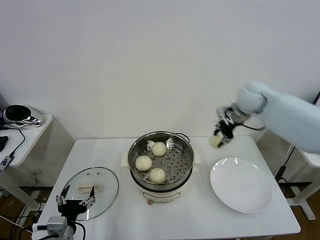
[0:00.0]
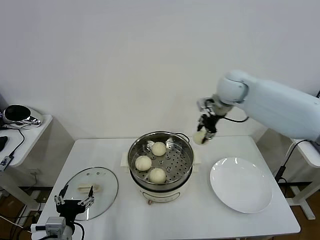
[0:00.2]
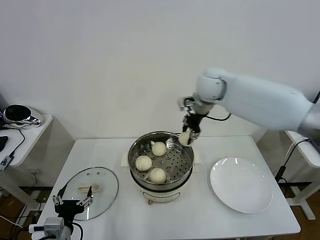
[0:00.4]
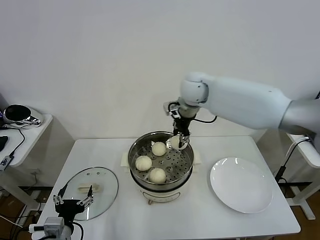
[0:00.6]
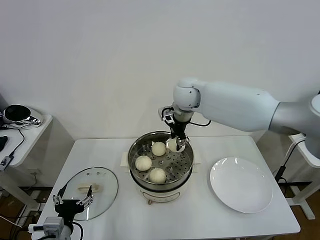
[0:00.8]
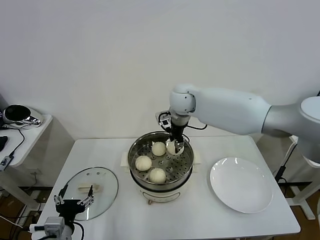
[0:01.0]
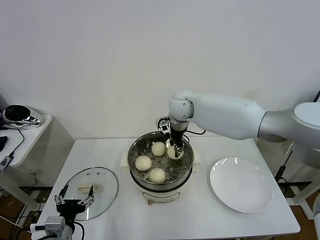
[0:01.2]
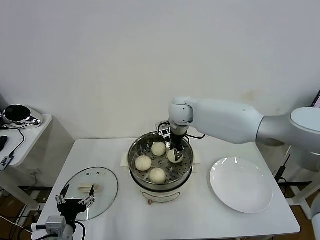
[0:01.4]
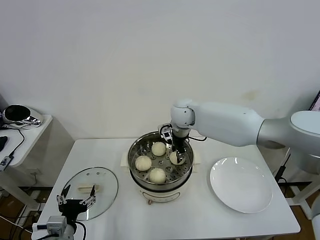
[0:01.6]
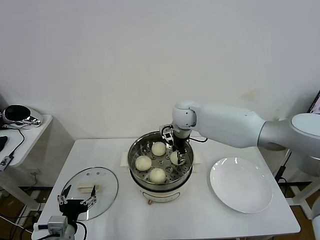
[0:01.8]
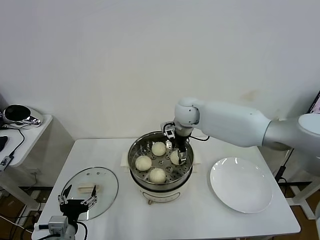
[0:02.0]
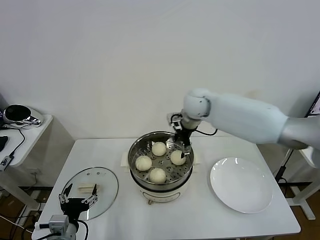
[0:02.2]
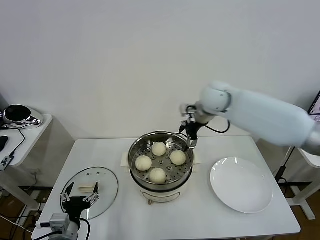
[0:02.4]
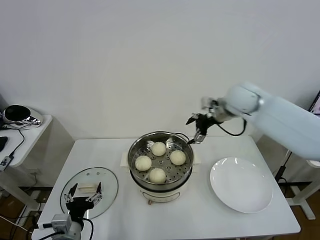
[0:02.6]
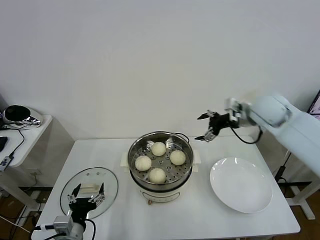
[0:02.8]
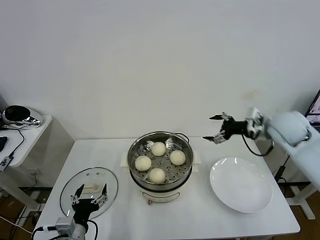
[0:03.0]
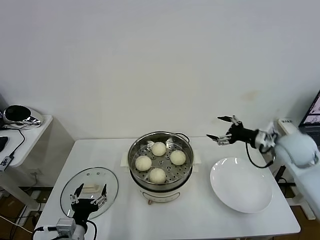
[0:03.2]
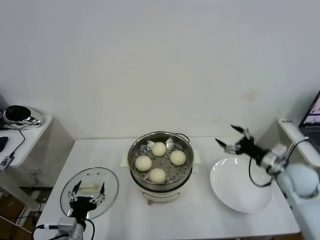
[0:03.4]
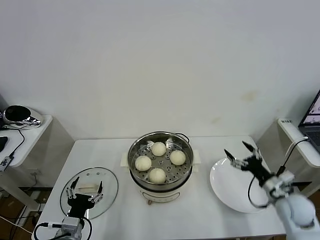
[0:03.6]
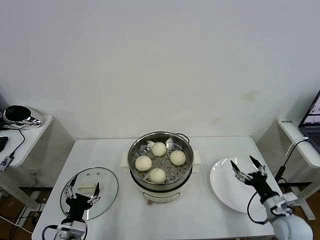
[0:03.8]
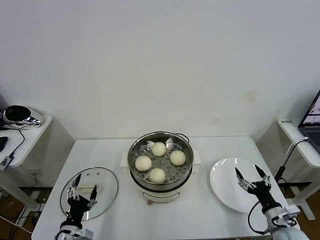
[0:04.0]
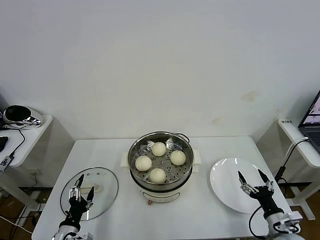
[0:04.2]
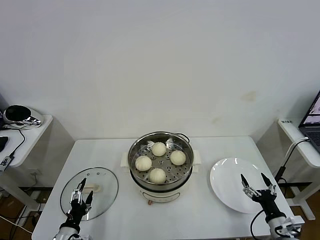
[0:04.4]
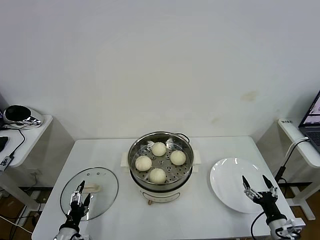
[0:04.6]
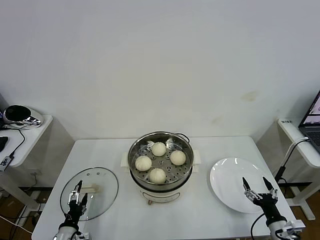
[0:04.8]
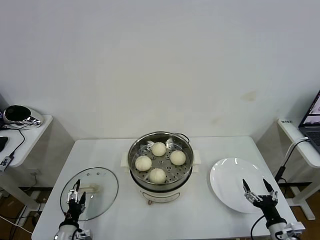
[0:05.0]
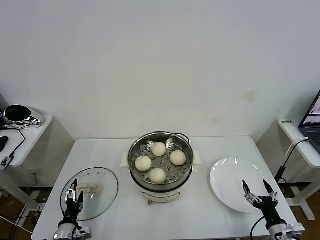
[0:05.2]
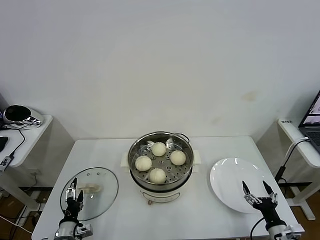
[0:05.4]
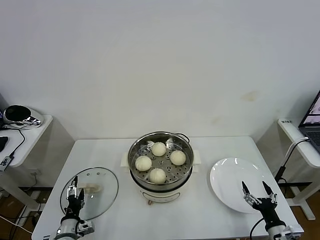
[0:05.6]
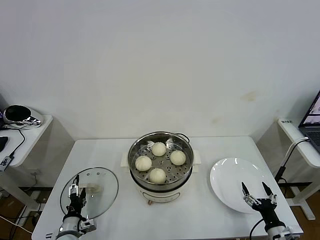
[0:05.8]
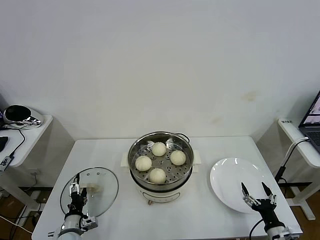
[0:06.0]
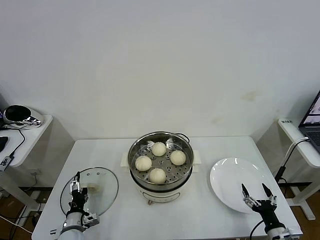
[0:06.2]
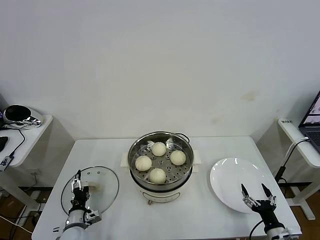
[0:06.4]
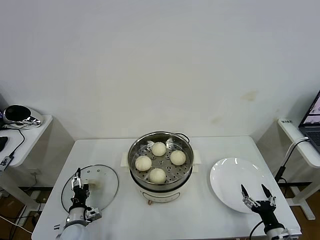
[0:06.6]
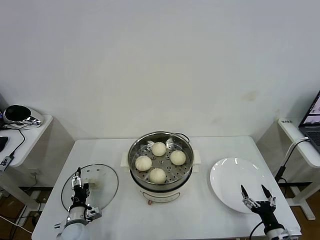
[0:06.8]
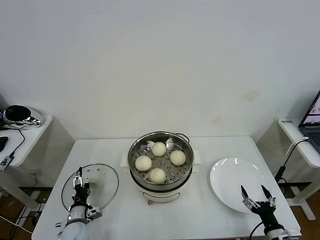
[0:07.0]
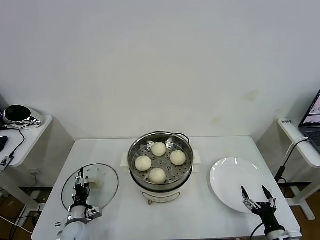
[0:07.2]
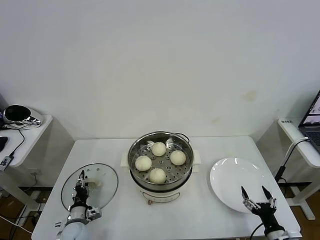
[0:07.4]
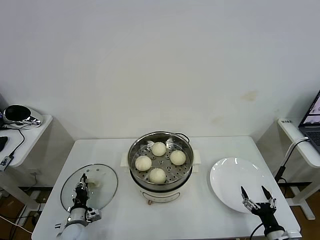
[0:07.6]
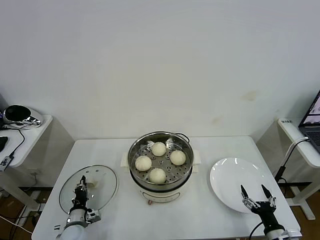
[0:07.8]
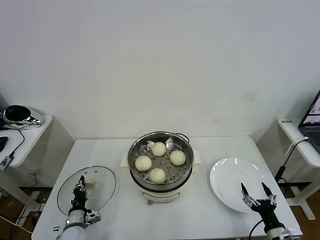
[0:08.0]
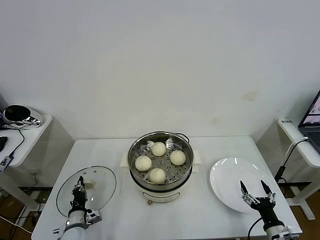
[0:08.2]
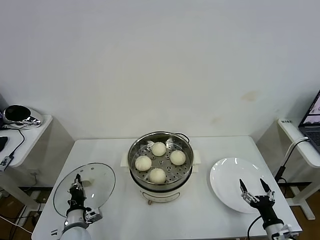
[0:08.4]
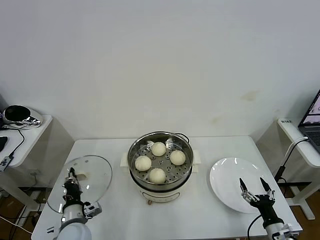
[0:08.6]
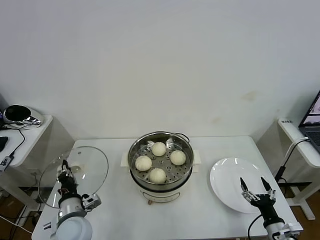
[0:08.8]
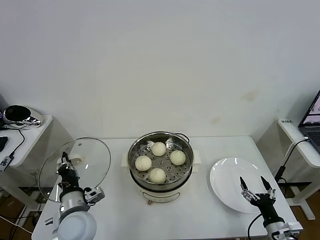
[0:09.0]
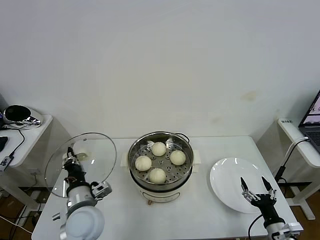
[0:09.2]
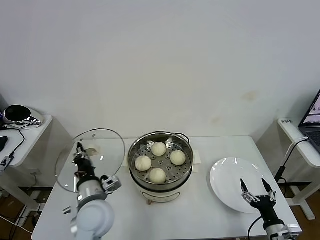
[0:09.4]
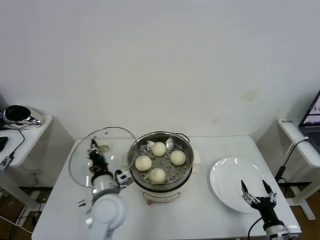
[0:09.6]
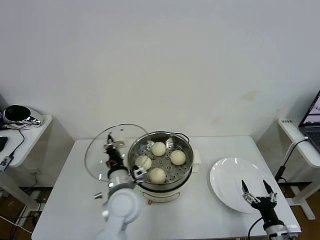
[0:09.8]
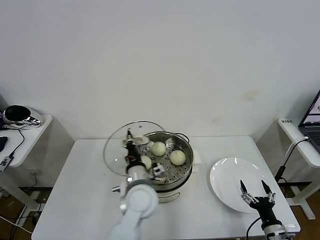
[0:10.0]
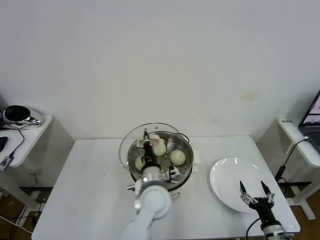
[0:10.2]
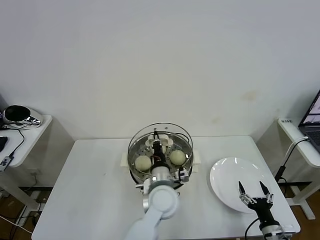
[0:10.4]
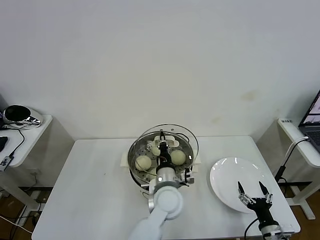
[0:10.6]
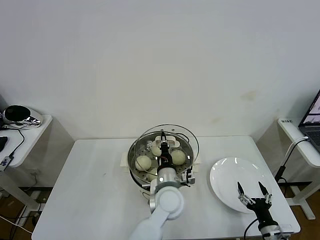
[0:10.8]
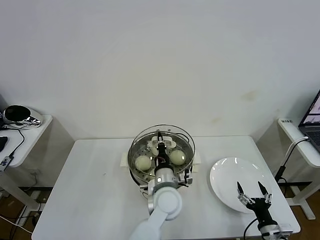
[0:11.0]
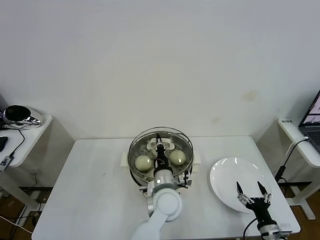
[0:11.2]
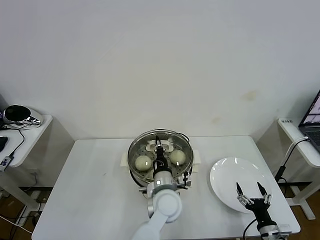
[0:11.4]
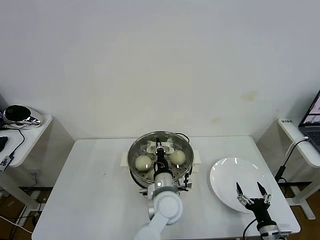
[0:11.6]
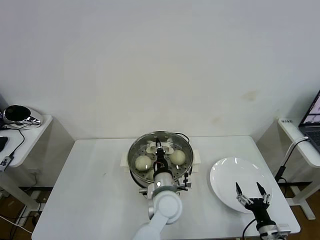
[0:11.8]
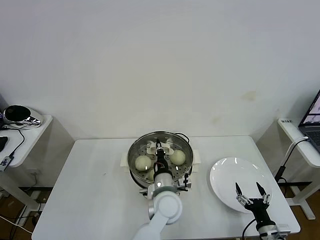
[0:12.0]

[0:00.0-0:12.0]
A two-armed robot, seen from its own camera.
Task of the whole recording: take steamed baozi put them in steamer then cover it.
Step, 0:00.0 to 0:02.0: Place the baozi on the steamer with right gripper.
Step, 0:02.4 to 0:07.8: Grasp the pot lid with left gripper.
0:00.0 to 0:01.6: The right gripper goes approximately 20 cm to the left.
0:01.6 to 0:03.0: The right gripper goes some 30 cm to the right, and opens up.
0:03.0 to 0:04.4: The right gripper heads downward and backward, covering some 40 cm. The left gripper shifts about 10 cm downward and to the left.
0:04.4 to 0:06.0: The left gripper moves forward, about 5 cm.
0:06.0 to 0:07.6: The left gripper changes place by some 5 cm, and closes its fingers.
0:07.6 to 0:09.0: The left gripper heads upward and to the right, covering roughly 20 cm.
0:09.0 to 0:10.4: The left gripper is displaced to the right by some 25 cm.
0:10.4 to 0:12.0: The grippers make only small movements.

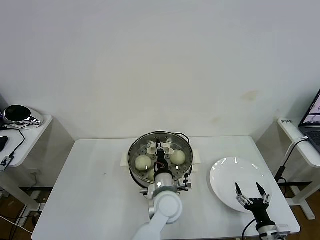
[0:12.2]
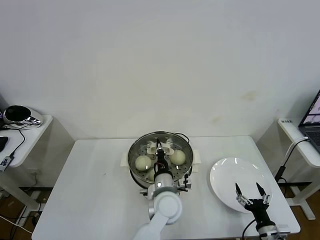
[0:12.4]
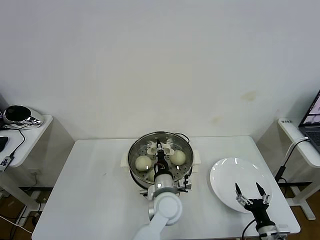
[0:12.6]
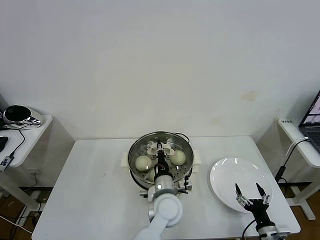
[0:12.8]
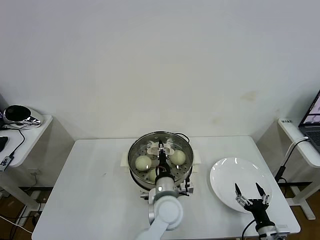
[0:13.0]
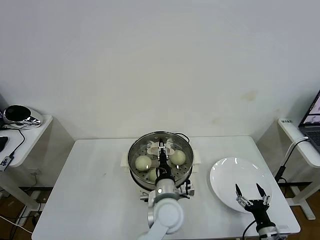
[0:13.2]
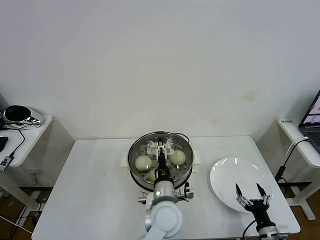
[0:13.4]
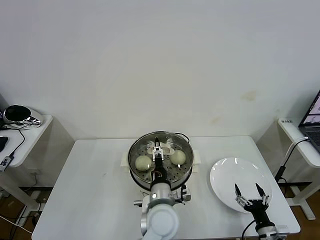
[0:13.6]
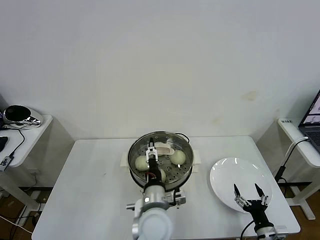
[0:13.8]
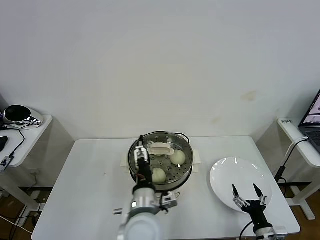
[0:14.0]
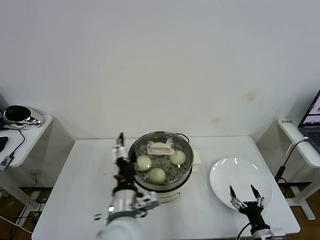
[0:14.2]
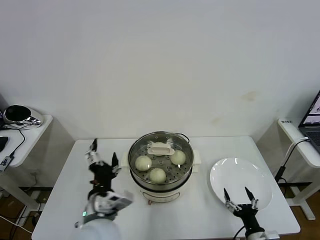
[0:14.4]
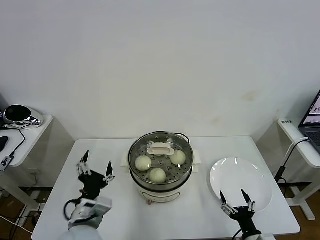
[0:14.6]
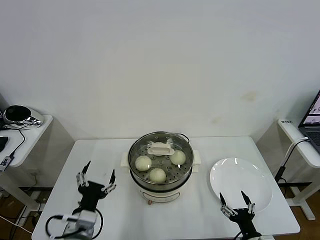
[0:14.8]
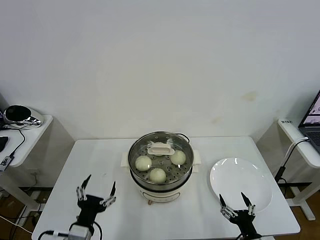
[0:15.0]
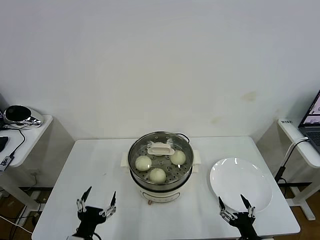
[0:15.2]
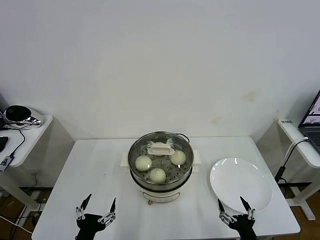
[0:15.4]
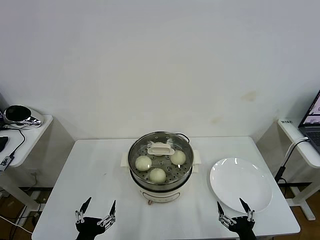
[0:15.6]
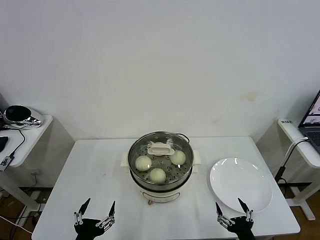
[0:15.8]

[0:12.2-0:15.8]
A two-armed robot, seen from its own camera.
Task of the whole recording: take steamed baozi put them in steamer then cover it.
0:12.2 to 0:14.0: The left gripper moves backward, upward and to the left, about 10 cm, and opens its fingers.
0:14.0 to 0:15.8: The right gripper shifts approximately 10 cm to the left, backward and upward. The left gripper shifts approximately 25 cm to the left and backward.

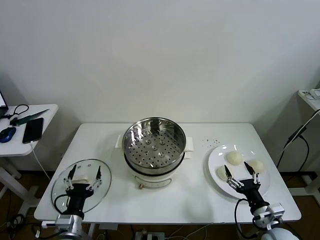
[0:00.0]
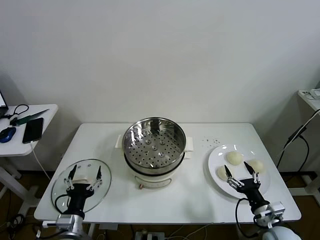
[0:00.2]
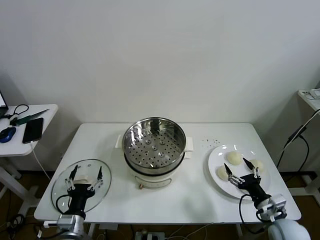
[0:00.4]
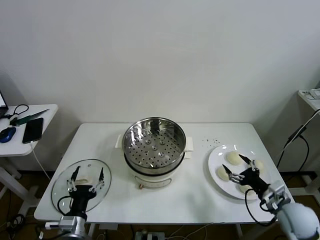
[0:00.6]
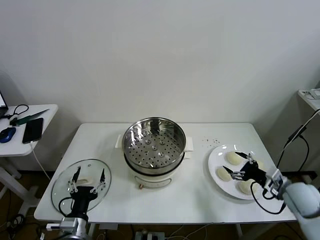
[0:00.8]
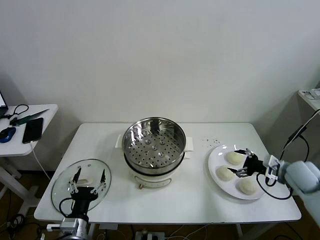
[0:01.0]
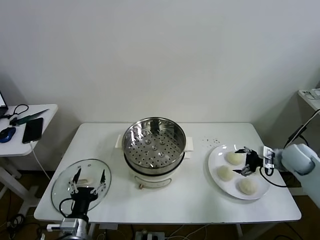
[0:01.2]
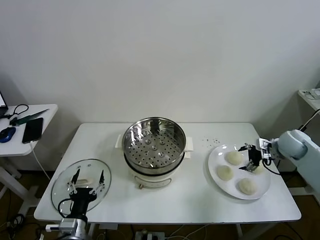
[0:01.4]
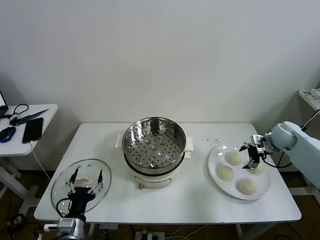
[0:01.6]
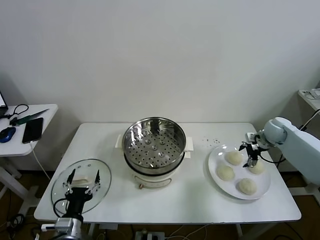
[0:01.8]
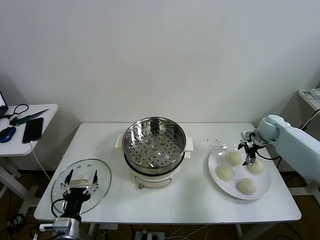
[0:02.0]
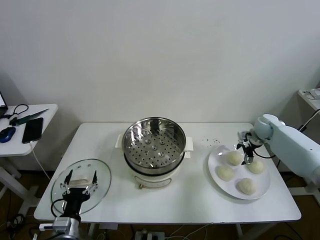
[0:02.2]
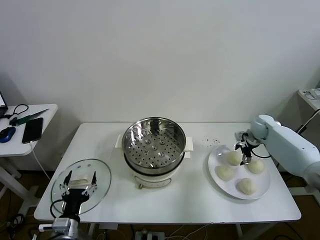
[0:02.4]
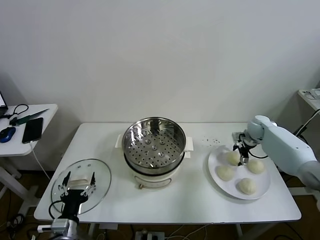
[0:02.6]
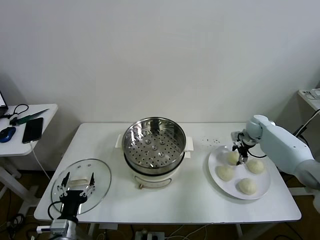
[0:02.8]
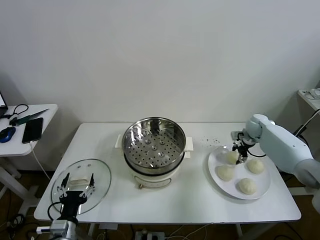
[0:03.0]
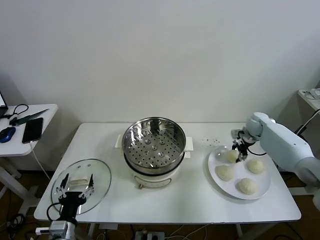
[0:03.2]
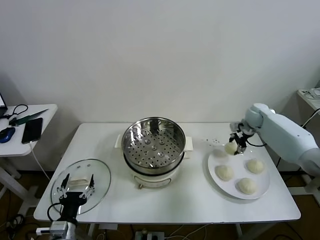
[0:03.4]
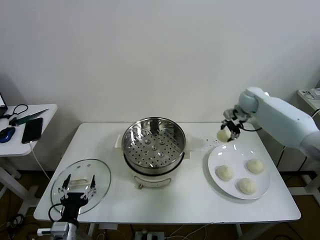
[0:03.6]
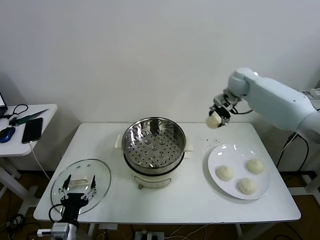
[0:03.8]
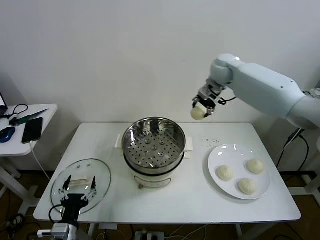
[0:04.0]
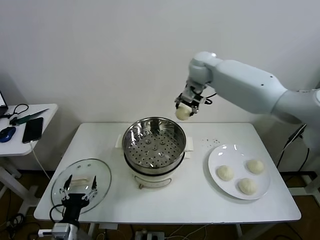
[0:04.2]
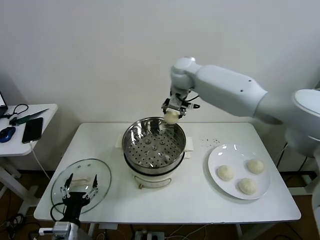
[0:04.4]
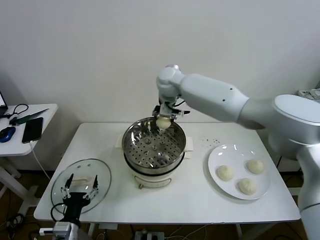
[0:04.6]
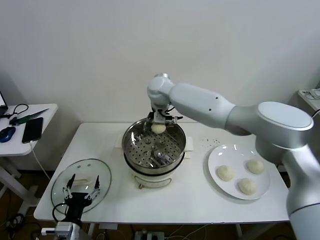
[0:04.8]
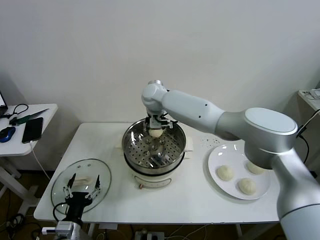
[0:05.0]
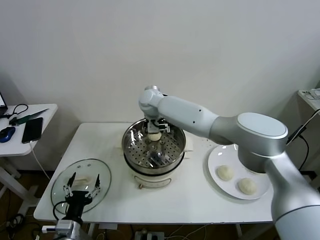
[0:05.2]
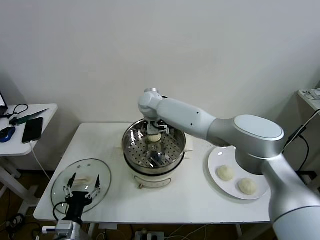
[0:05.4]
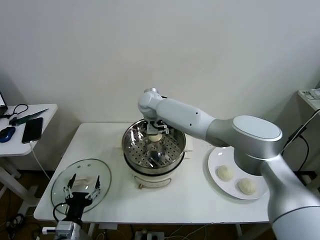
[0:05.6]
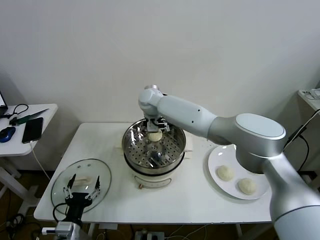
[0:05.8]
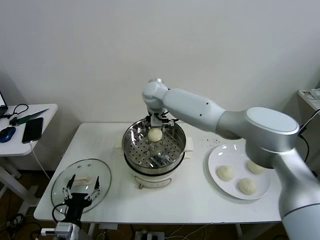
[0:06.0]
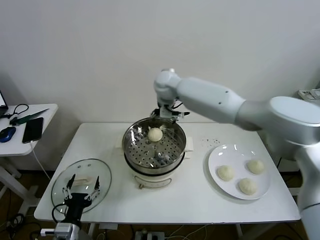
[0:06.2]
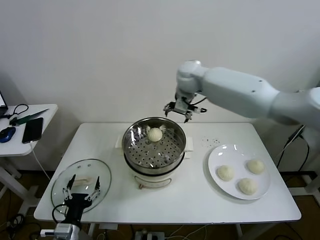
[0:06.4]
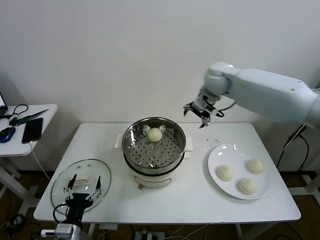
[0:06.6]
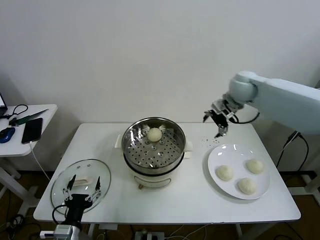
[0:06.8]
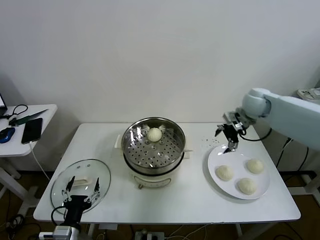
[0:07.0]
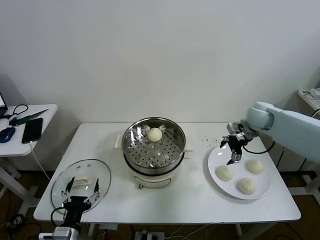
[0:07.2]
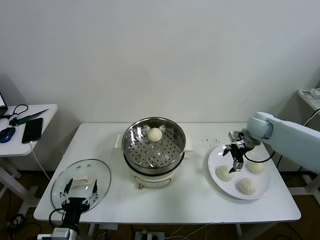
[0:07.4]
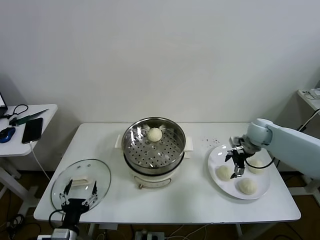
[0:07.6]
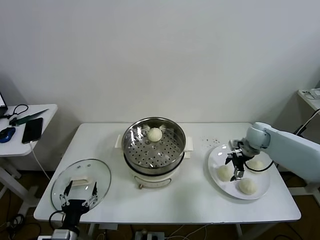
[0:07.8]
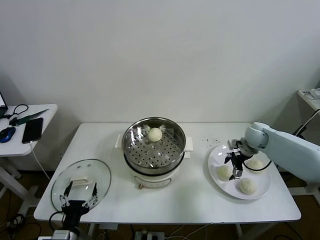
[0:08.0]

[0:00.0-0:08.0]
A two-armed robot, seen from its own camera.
Task of the whole recording: take steamed baozi put them in steamer then cover it.
Step, 0:00.0 to 0:03.0: Grasp the baozi in the plate with right gripper.
Step, 0:03.2 to 0:05.6: Place the baozi on the steamer with right gripper.
0:01.6 to 0:03.2: The right gripper shifts about 5 cm forward, and closes.
0:03.2 to 0:04.8: The right gripper travels to the left by roughly 40 cm.
0:04.8 to 0:06.4: The right gripper moves to the right and upward, about 15 cm, and opens its fingers.
0:06.4 to 0:08.0: The right gripper heads to the right and downward, covering approximately 35 cm.
